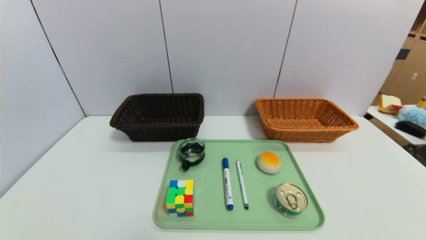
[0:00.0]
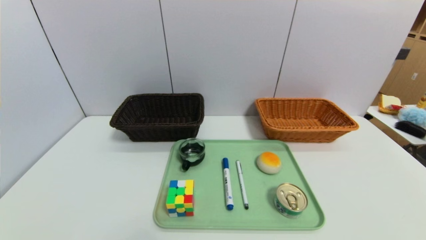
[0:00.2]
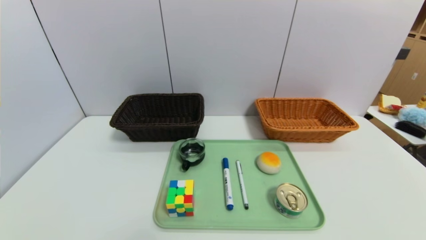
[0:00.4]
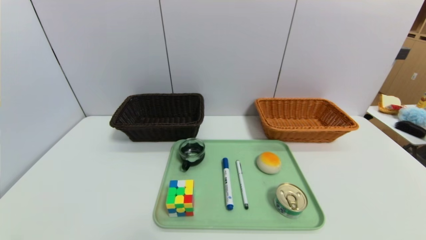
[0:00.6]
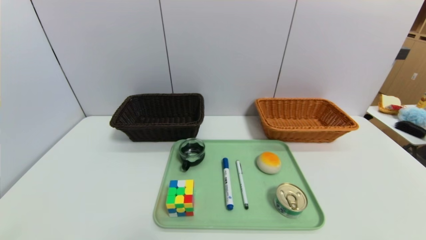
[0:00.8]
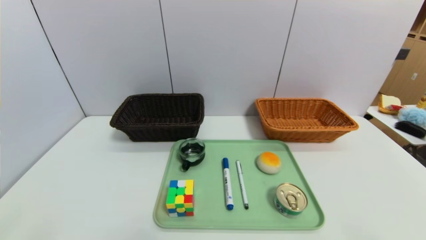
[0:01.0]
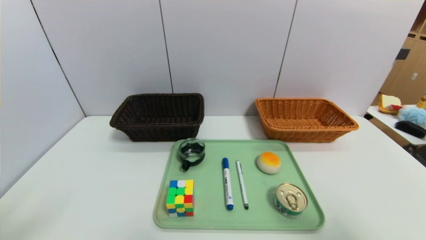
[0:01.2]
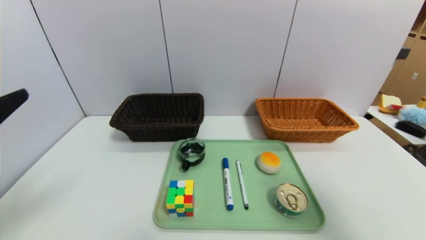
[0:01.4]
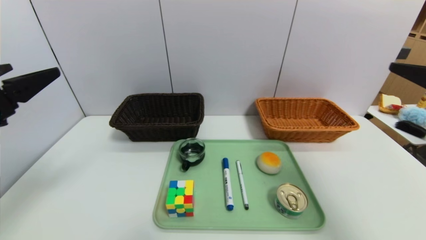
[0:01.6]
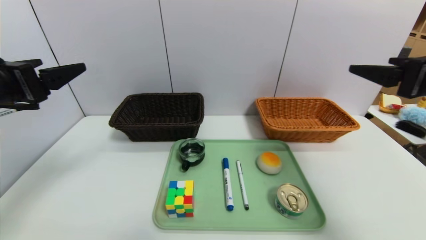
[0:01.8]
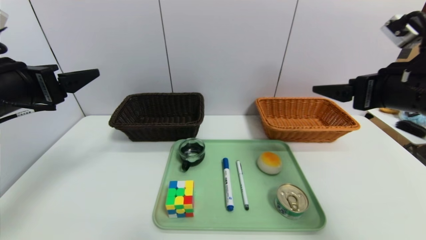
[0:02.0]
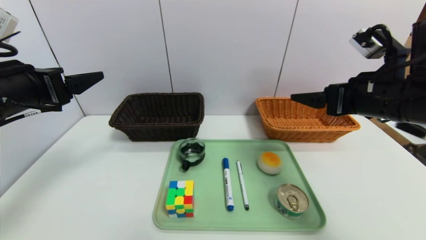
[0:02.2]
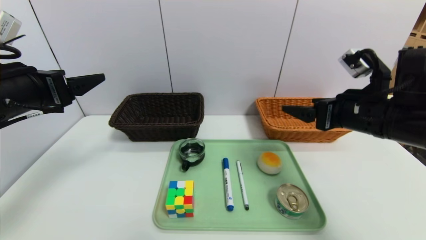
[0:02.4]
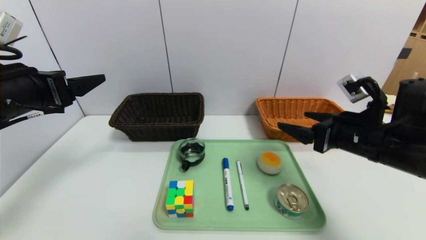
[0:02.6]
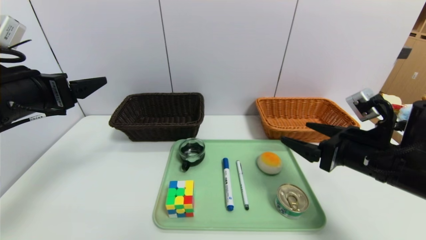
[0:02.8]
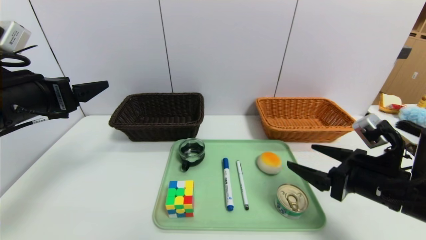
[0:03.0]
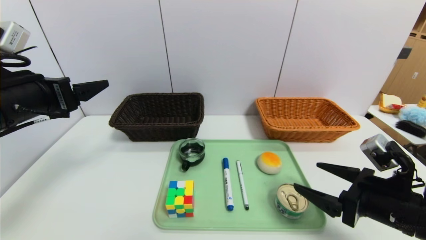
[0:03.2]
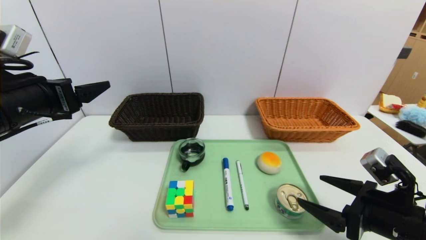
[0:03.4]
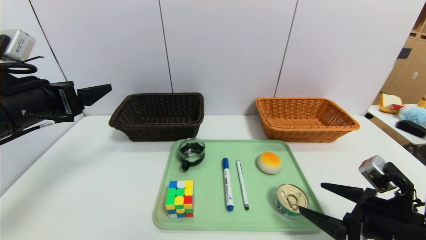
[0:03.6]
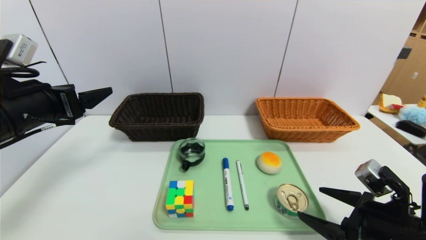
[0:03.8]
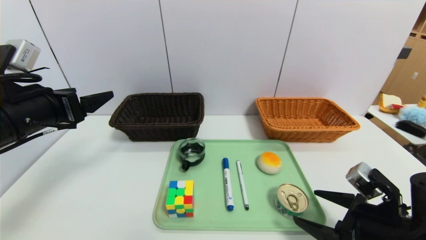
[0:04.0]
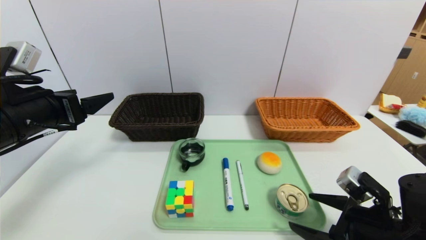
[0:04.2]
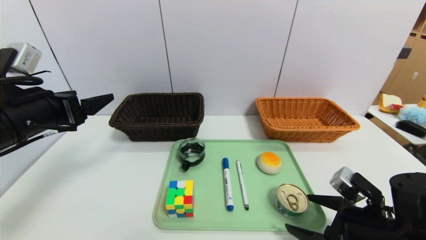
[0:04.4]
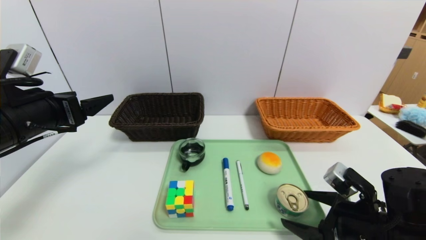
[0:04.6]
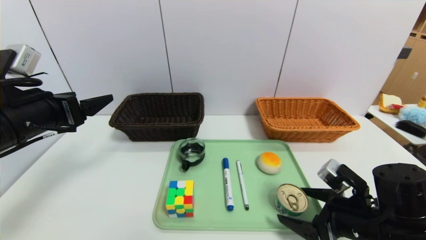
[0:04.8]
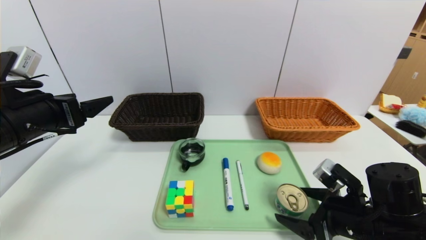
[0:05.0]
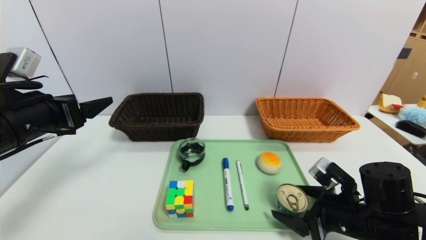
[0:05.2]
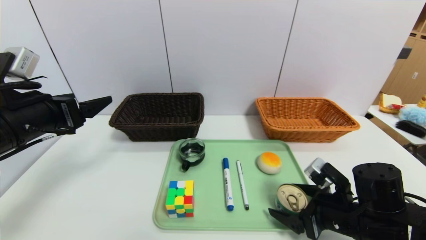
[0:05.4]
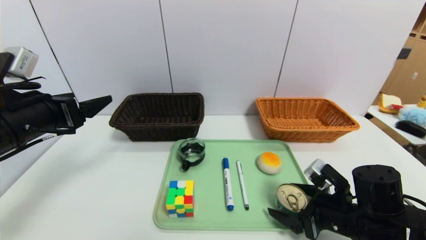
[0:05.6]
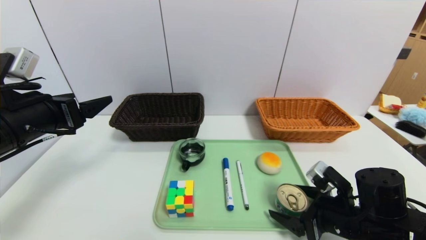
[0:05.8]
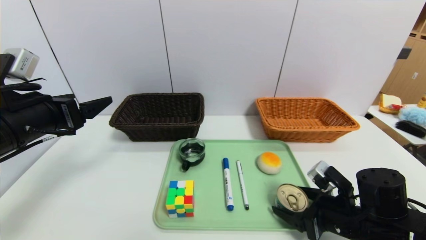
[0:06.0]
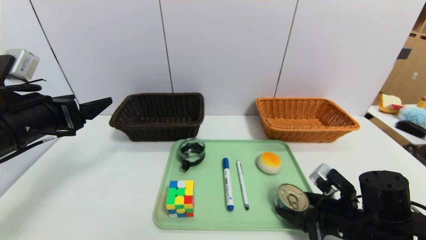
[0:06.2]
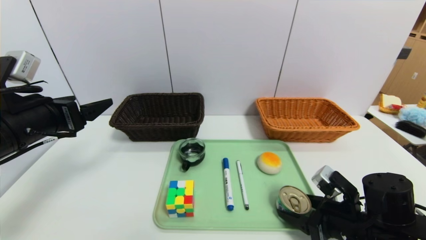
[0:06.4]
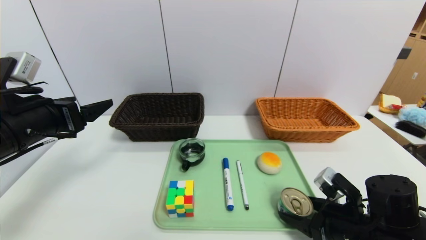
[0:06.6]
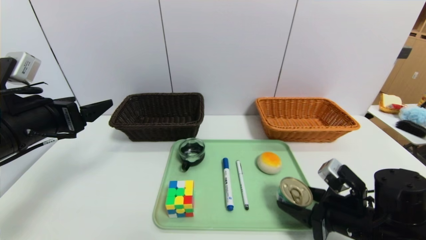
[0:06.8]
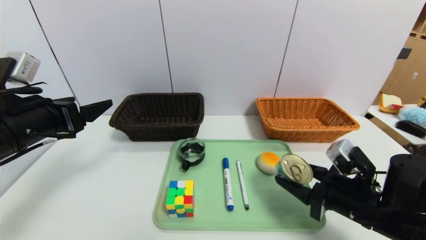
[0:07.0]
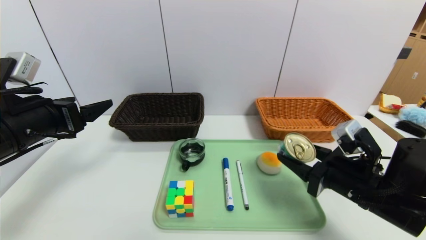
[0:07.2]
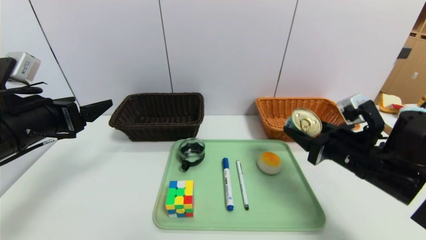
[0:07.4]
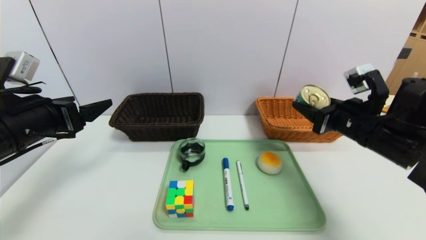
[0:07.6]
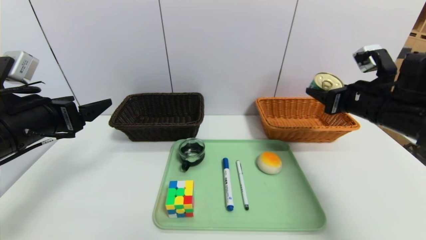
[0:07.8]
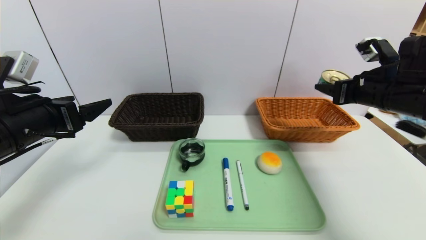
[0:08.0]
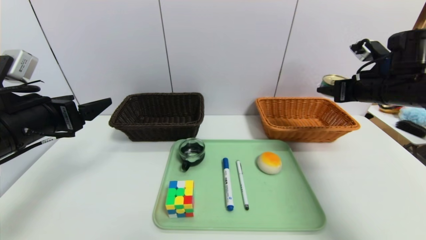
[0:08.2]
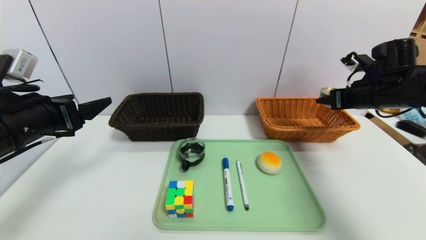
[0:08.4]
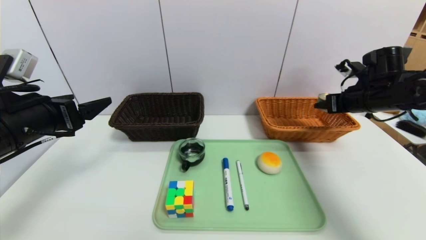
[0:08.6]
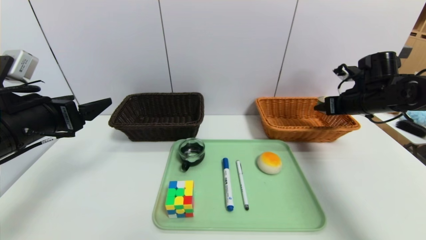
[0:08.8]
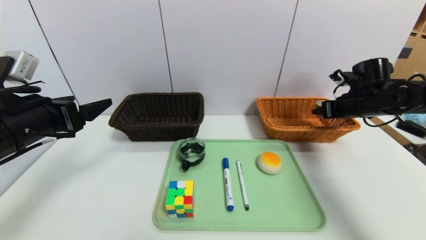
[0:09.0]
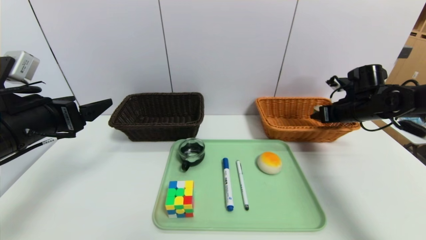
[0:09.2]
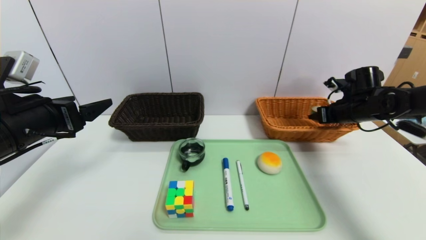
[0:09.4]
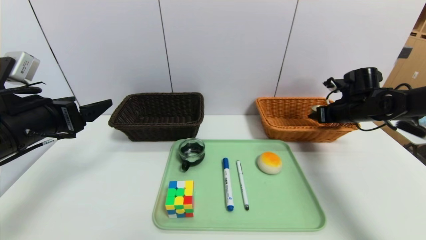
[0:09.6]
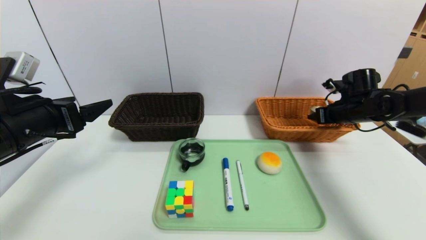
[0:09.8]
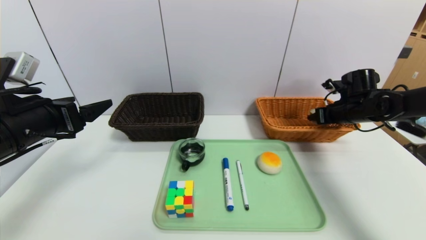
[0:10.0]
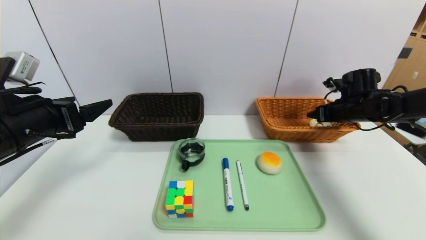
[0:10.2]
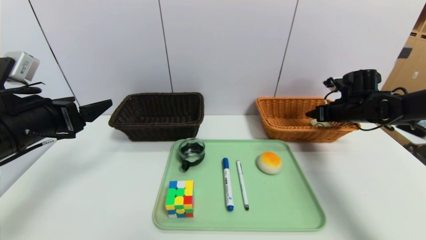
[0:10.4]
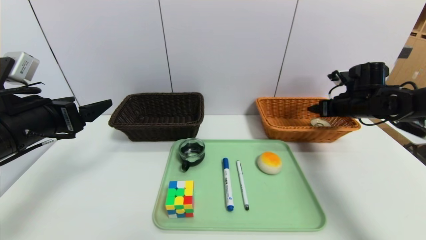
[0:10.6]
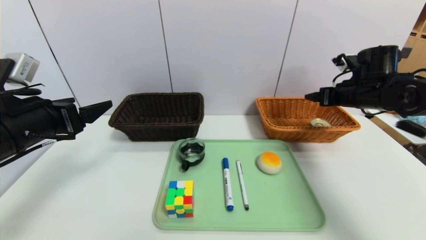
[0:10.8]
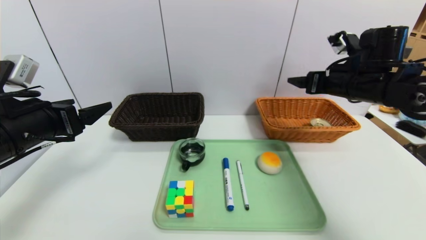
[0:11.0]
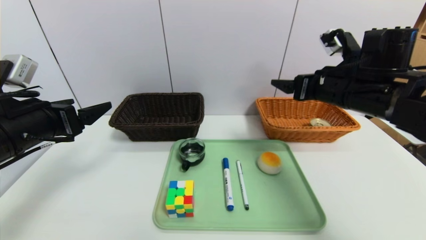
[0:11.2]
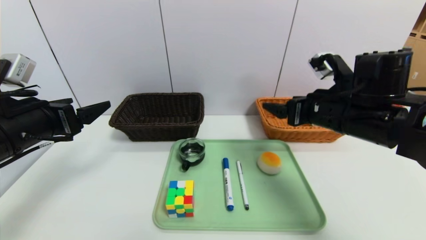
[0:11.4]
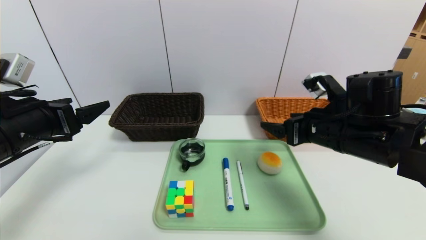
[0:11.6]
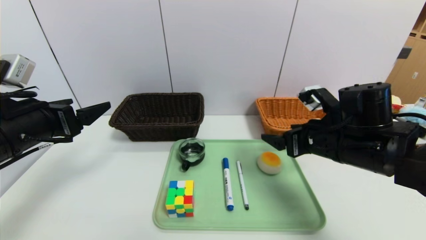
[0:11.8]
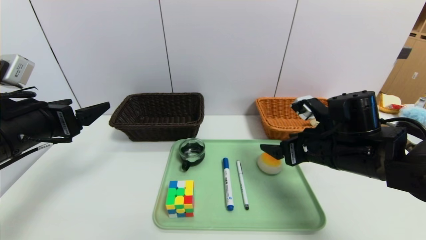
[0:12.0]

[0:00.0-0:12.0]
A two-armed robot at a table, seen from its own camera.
Task of the whole recording: place the food in the right basket with the right gripper, and place the non food items in the left basket with the left gripper.
Step, 0:00.0 to 0:11.0: Grasp the can and put it in the right basket.
0:00.0 to 0:01.6: The two grippers go approximately 30 cm upward and forward.
0:01.6 to 0:03.0: The right gripper is displaced downward by about 15 cm, while the left gripper moves forward, roughly 5 cm.
0:03.0 to 0:04.4: The right gripper shifts some 5 cm downward.
0:04.4 to 0:06.0: The grippers move only a little.
0:06.0 to 0:07.6: The right gripper is displaced upward and forward by some 15 cm.
0:07.6 to 0:09.0: The right gripper moves forward and to the right, roughly 15 cm.
0:09.0 to 0:10.4: The grippers move only a little.
0:10.4 to 0:12.0: The right gripper goes about 20 cm backward and to the left.

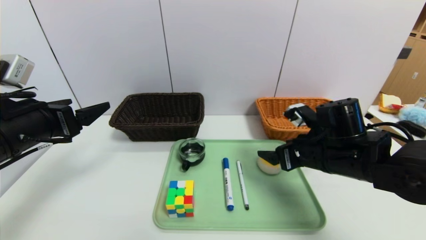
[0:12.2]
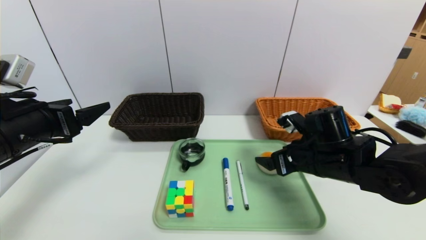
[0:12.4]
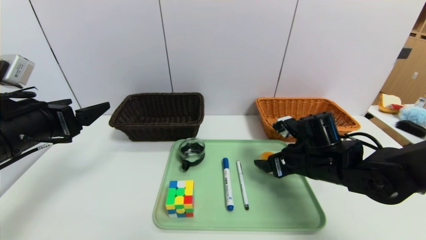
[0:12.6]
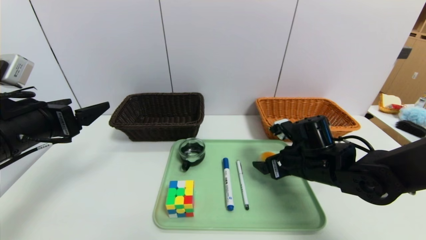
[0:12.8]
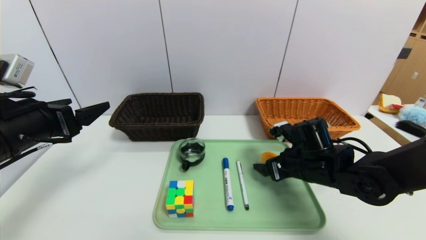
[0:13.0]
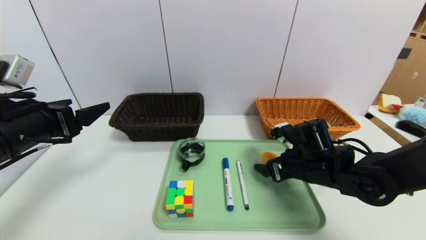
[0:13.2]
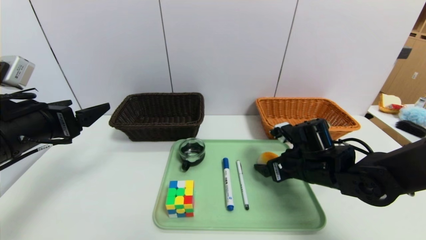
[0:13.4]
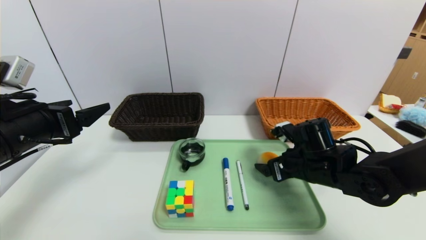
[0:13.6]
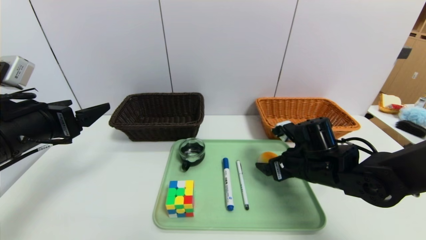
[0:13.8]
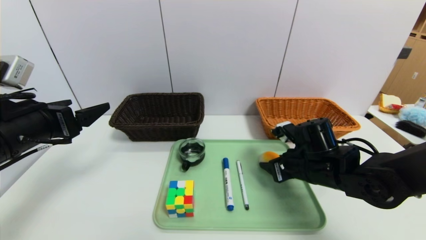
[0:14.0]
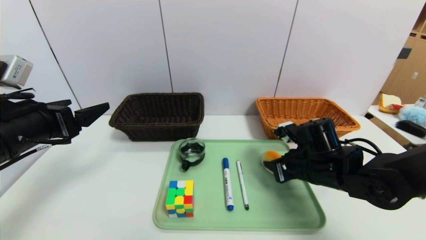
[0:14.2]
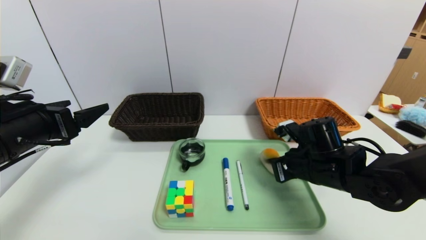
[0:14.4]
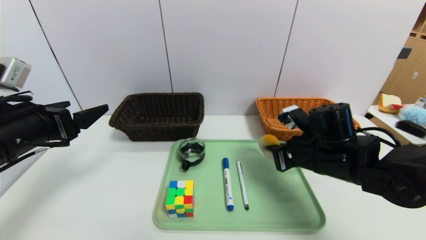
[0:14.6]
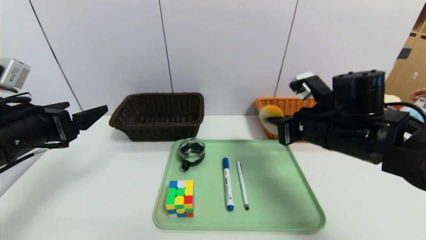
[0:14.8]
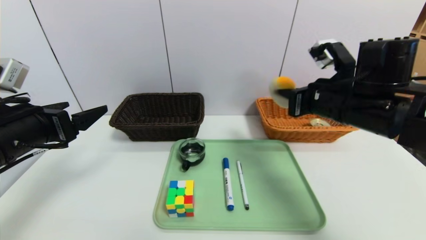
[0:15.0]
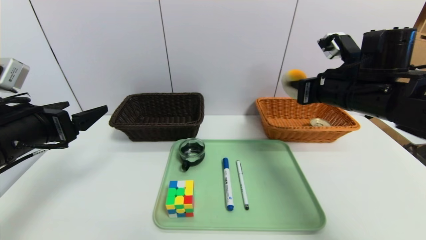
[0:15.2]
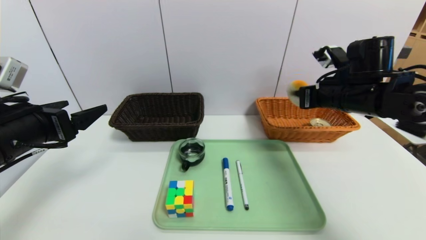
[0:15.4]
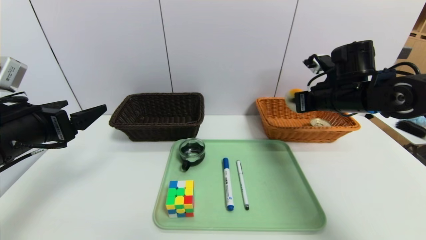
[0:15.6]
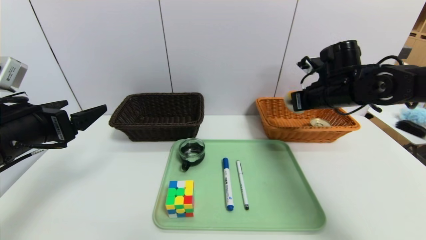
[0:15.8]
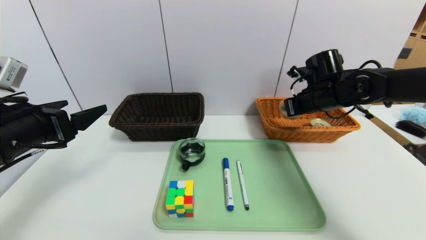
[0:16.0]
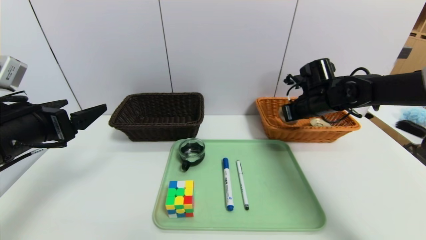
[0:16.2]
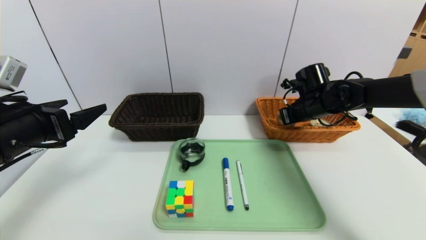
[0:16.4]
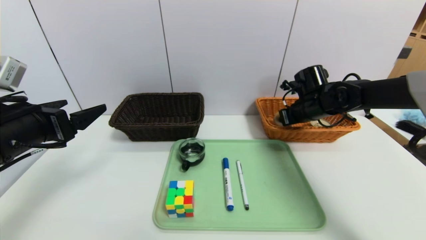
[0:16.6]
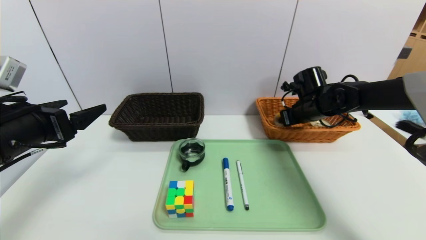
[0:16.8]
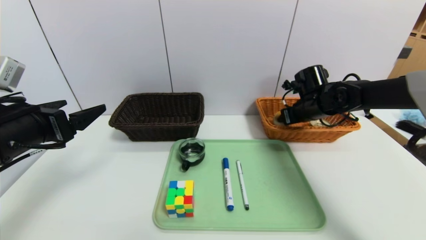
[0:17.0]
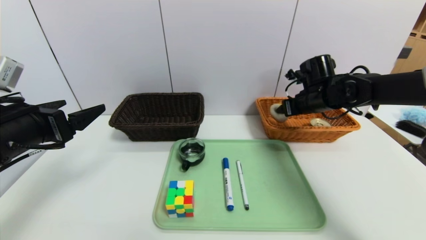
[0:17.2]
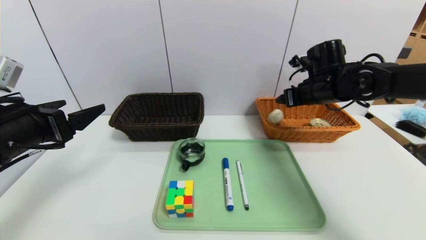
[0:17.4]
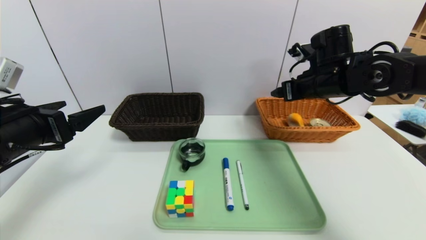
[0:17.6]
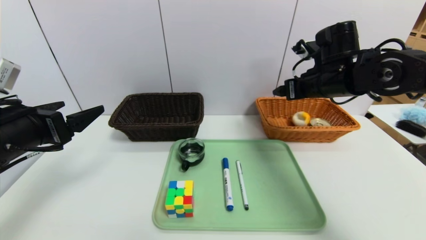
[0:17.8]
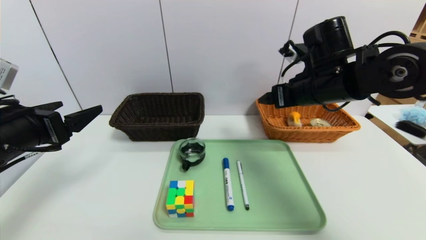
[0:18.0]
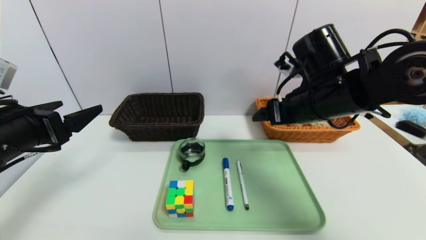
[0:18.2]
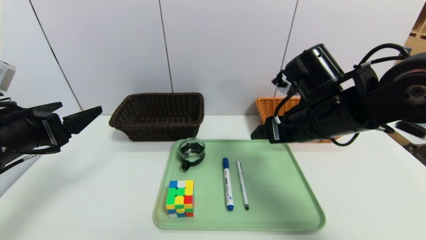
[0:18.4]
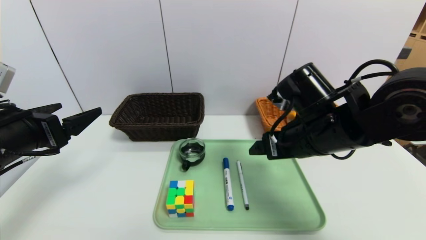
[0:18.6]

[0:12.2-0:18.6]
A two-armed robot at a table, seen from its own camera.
Task of the whole recording: place the food in the right basket with the right gripper, and place the non food items in the left basket with the left gripper.
Step, 0:12.2 to 0:17.6: Grasp the egg yolk pastry and put it in the right basket.
0:12.2 to 0:13.8: The grippers stay close to where they were, moving slightly.
0:13.8 to 0:15.4: The right gripper moves upward and to the right, roughly 15 cm, and closes its fingers.
0:15.4 to 0:17.0: The right gripper goes roughly 10 cm forward and downward, and opens its fingers.
0:17.0 to 0:18.6: The right gripper is displaced backward and to the left by some 20 cm.
